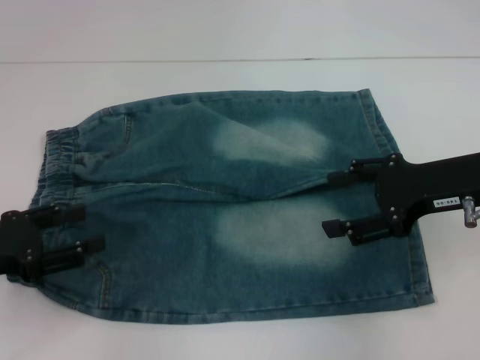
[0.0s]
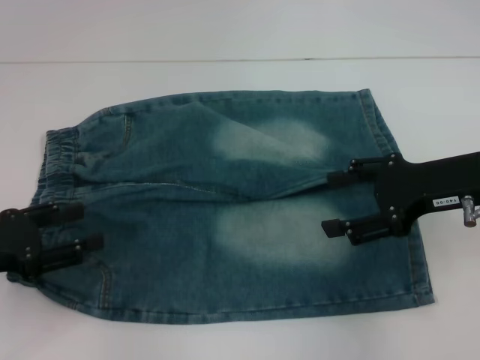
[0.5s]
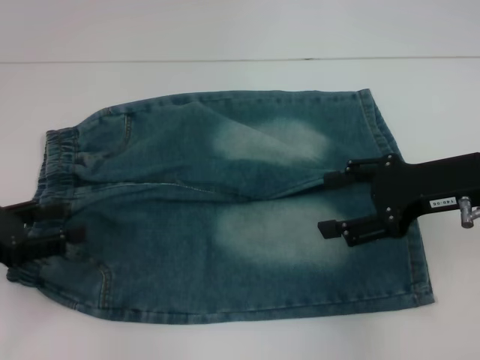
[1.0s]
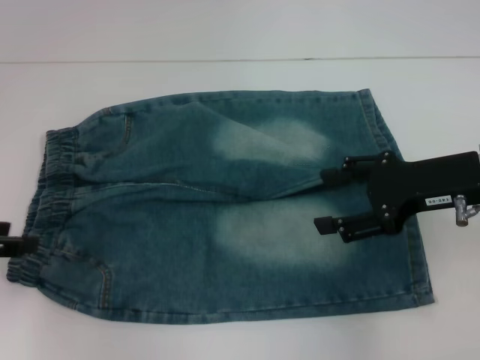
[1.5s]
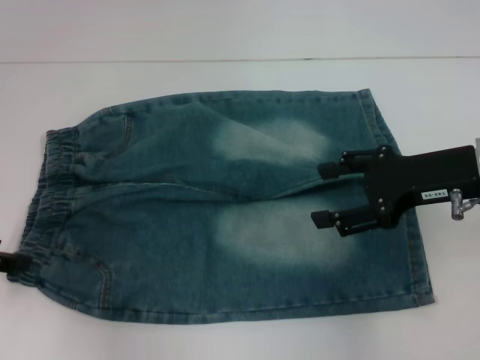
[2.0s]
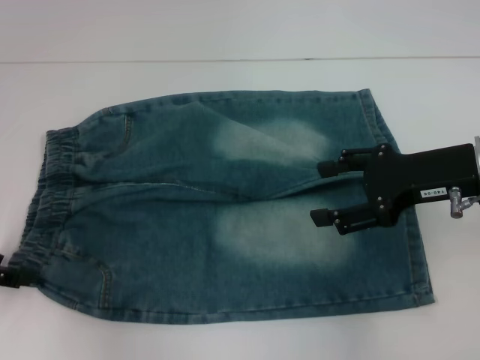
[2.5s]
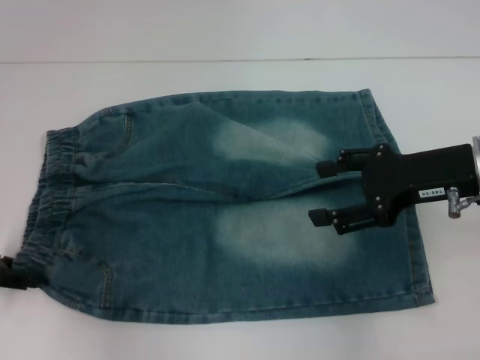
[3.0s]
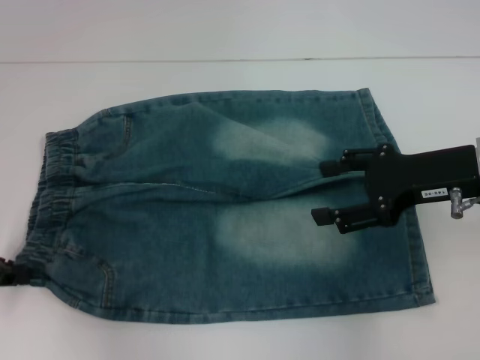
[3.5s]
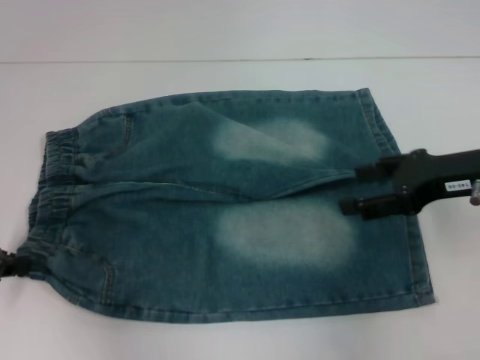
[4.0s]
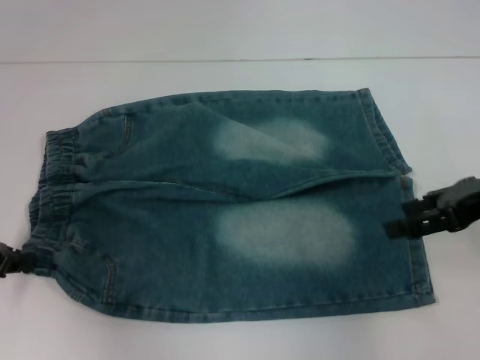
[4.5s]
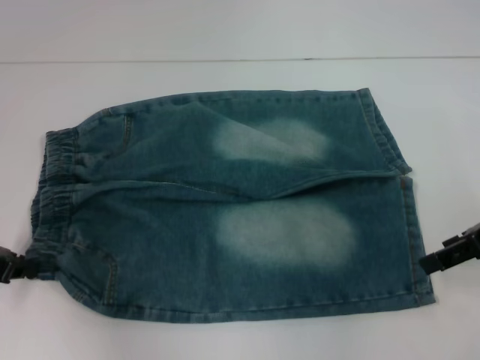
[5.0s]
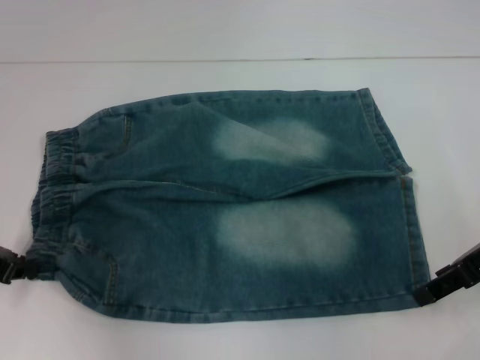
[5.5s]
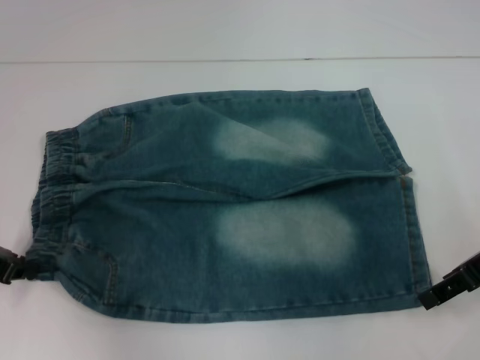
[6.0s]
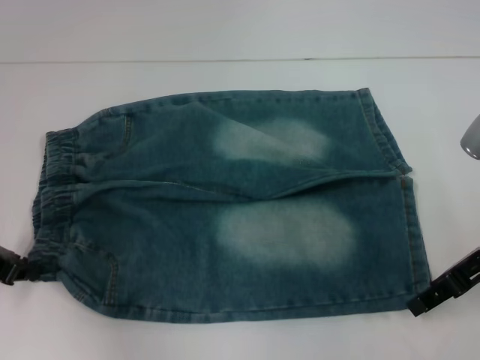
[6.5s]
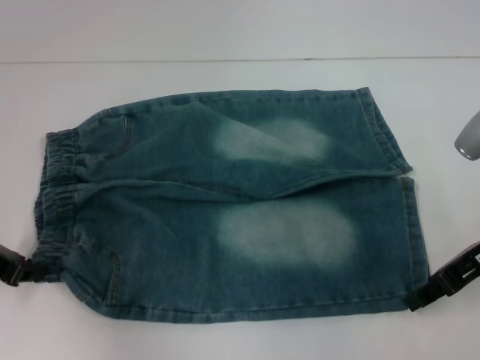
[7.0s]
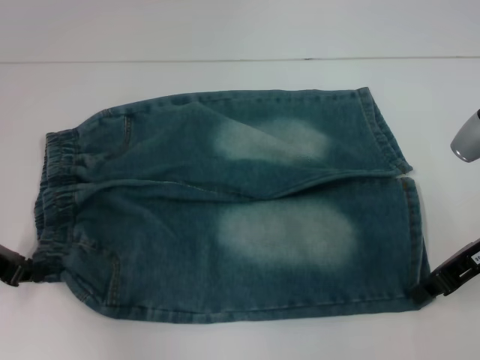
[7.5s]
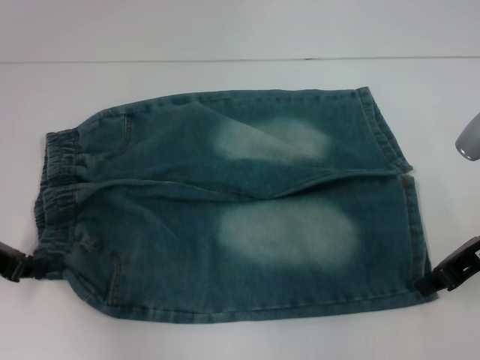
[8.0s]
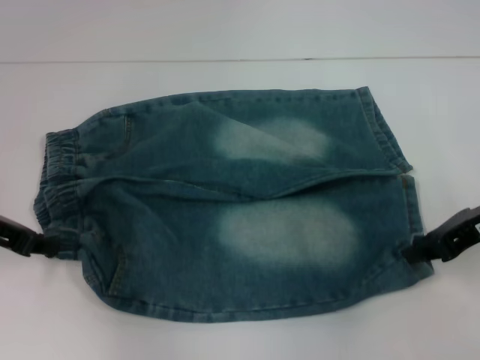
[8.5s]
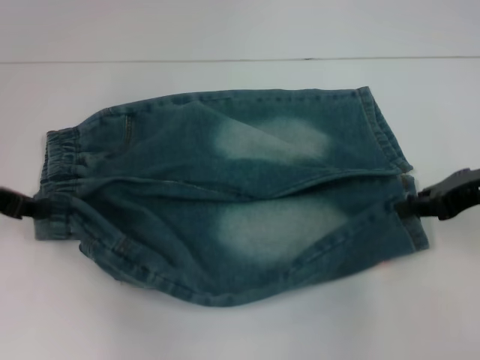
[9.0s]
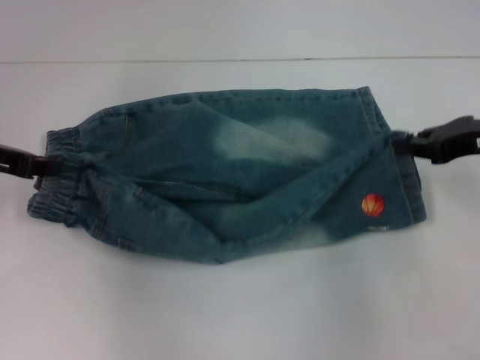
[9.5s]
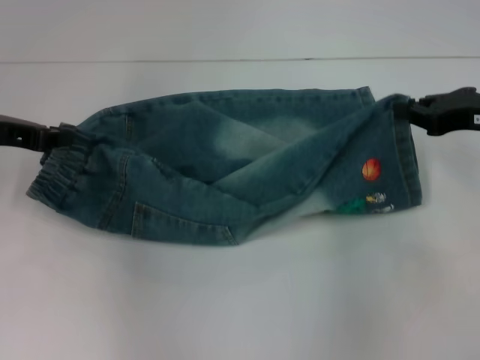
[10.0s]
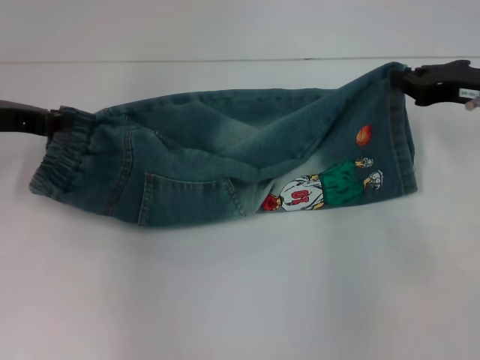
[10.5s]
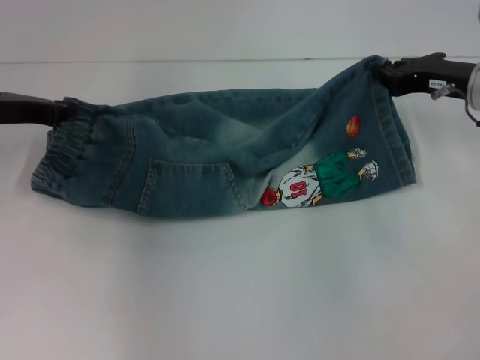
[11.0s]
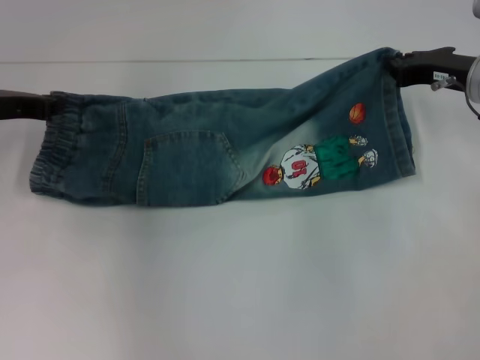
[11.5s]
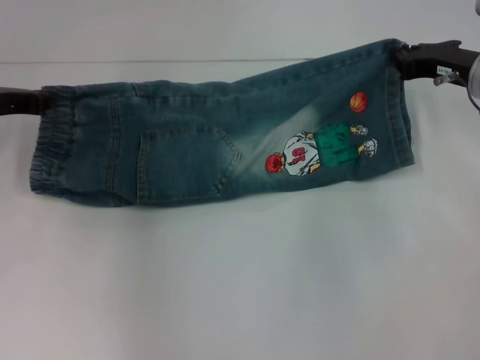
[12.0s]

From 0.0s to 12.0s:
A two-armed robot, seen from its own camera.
Step, from 0.0s to 3.0s: Hold the lower left waistband with your left hand.
Step, from 3.5s to 7.5s: Grab the lower right pant leg with your right hand.
From 0.0s to 2.0s: The left gripper ends up about 5 cm from where it was.
From 2.0s to 4.0s: The left gripper closes up.
From 6.0s to 8.0s: The right gripper closes up.
From 8.0s to 10.0s: The left gripper shifts roughly 10 cm upward and forward, while the right gripper ends up about 5 cm from where it was.
From 10.0s to 12.0s: The right gripper shifts some 5 cm forward.

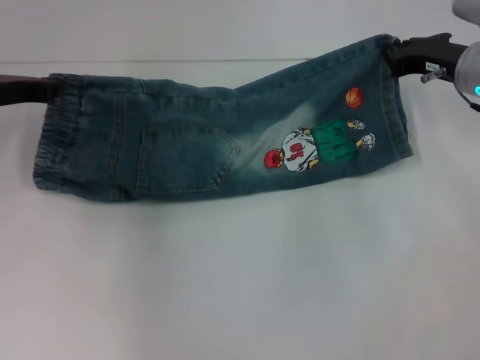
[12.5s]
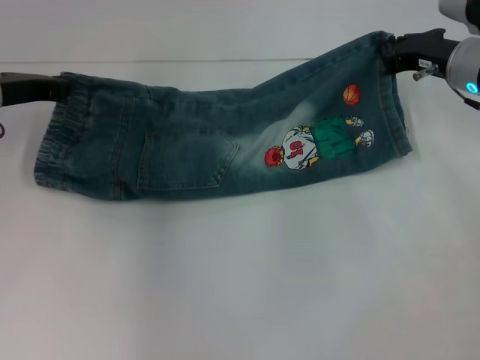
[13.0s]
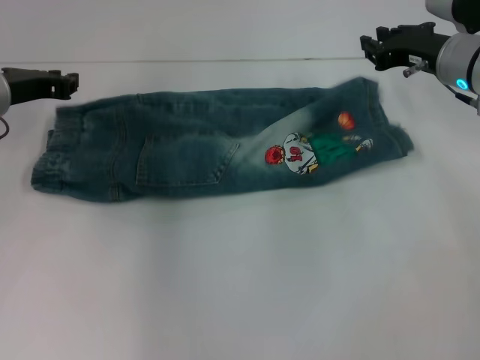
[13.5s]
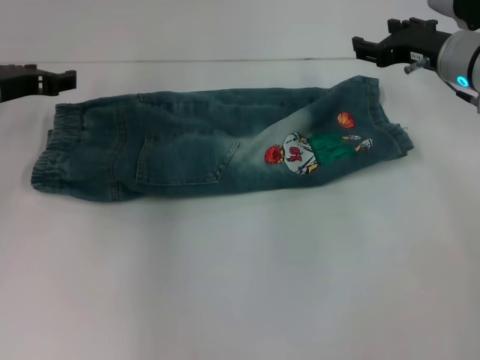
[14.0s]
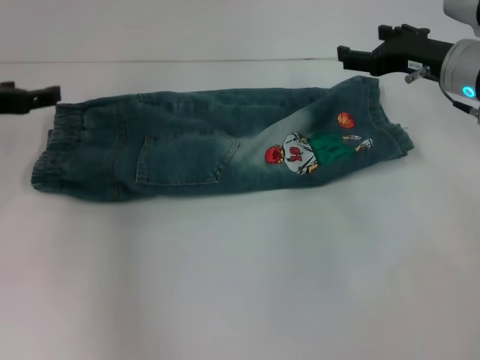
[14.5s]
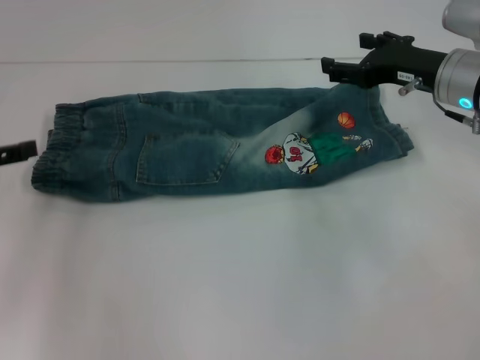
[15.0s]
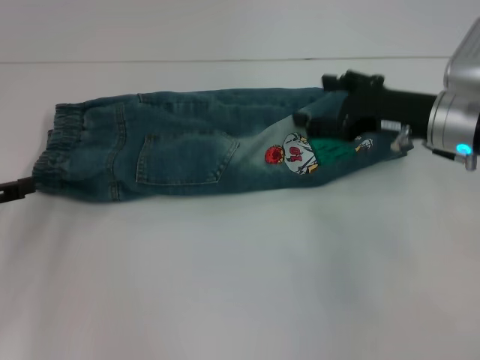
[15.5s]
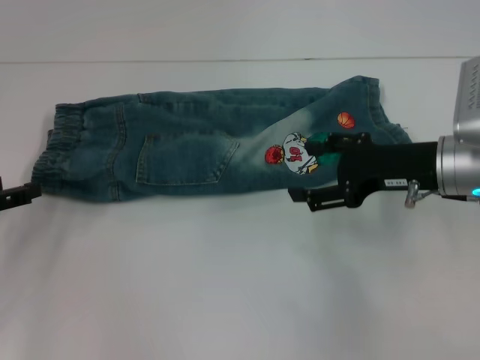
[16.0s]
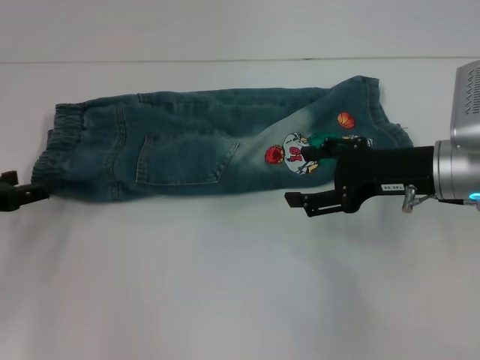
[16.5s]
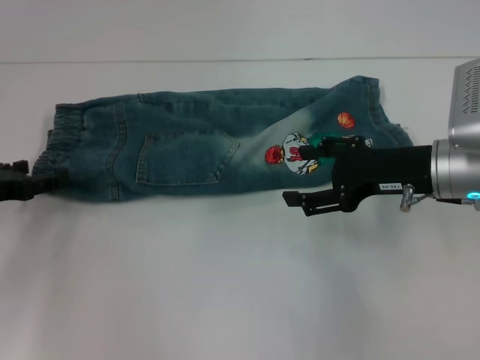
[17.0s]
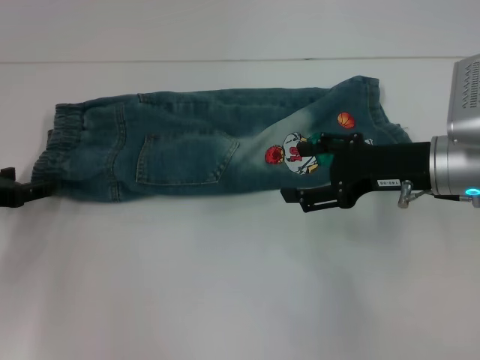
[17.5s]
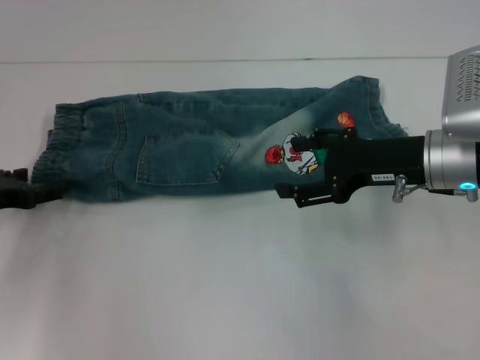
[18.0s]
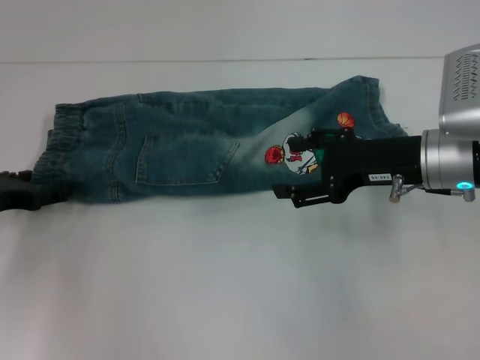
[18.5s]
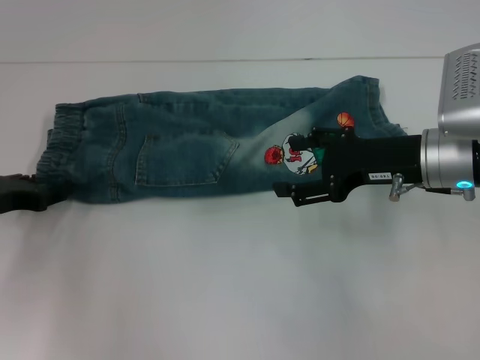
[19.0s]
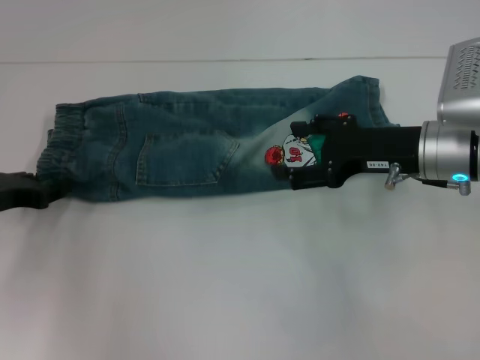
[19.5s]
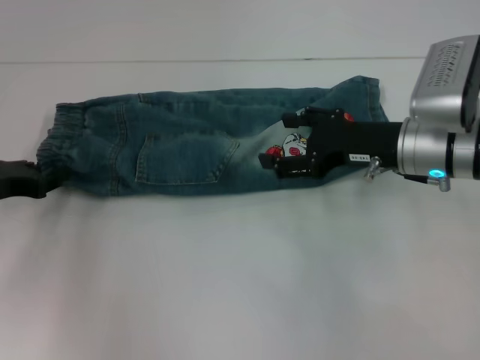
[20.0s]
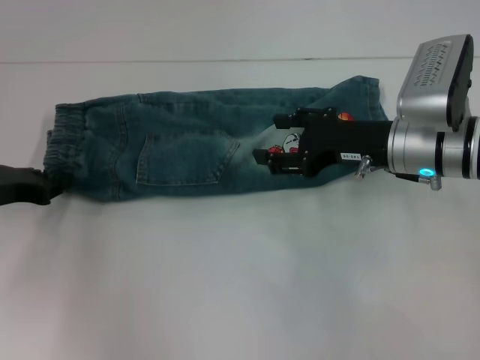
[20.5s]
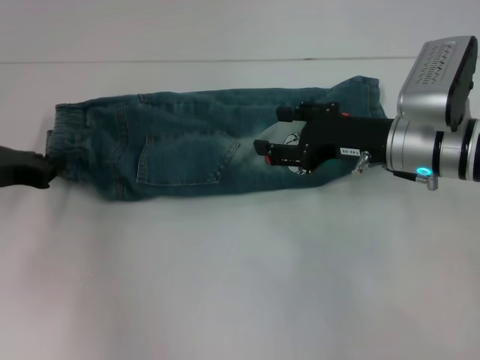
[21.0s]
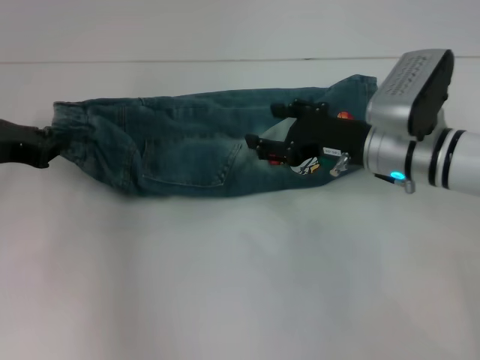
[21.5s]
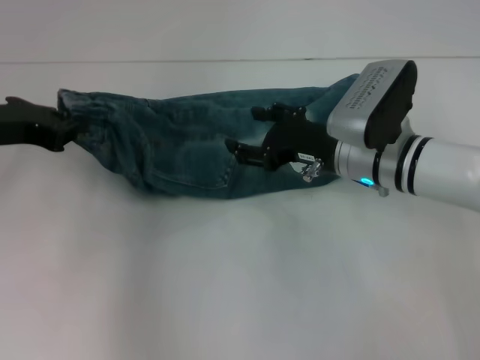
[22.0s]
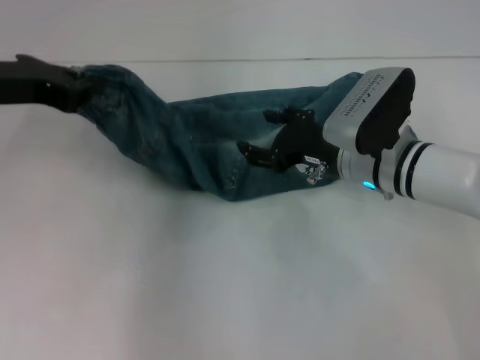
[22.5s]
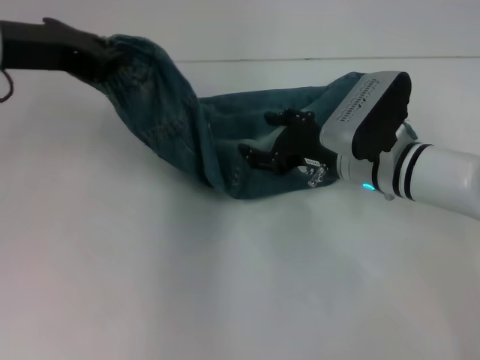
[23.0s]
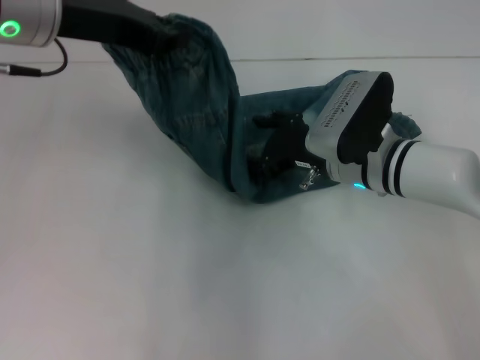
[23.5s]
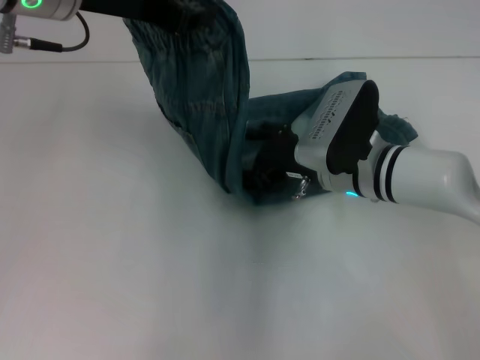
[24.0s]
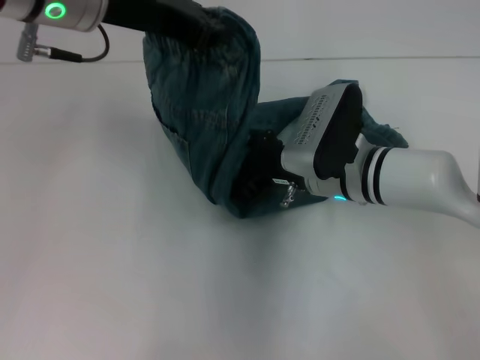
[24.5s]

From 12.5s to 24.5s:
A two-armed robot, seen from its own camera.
Step, from 14.0s to 19.0s: Hold the waistband with your left hand.
From 12.5s to 14.5s: The right gripper opens its fingers. The left gripper opens.
From 14.5s to 16.5s: The right gripper moves backward, roughly 10 cm. The left gripper shifts roughly 10 cm backward and downward.
From 16.5s to 18.5s: There are only small adjustments of the grippers.
From 18.5s to 20.5s: The left gripper closes its fingers.
From 20.5s to 22.5s: The right gripper ends up roughly 5 cm from where it was; the left gripper is displaced upward by some 15 cm.
From 22.5s to 24.5s: The left gripper goes approximately 15 cm to the right and upward.

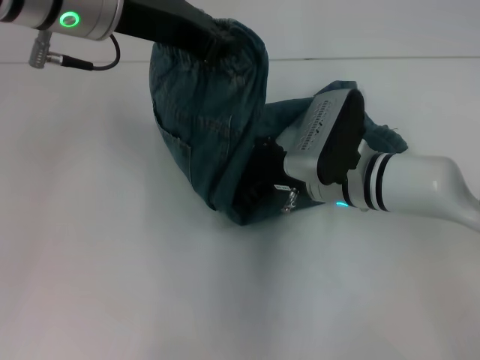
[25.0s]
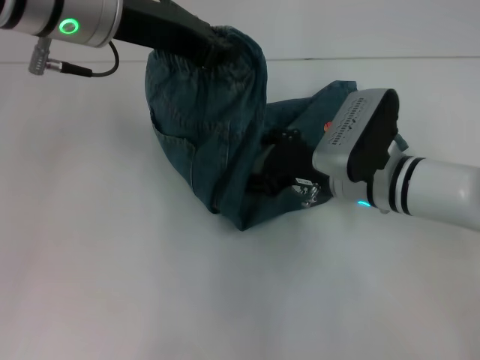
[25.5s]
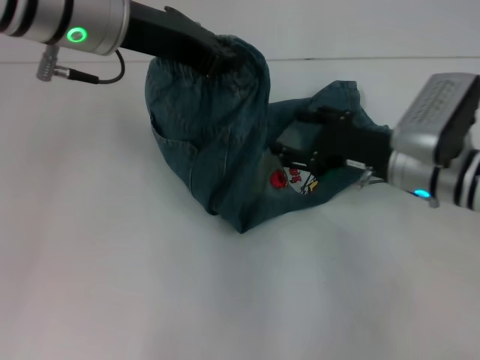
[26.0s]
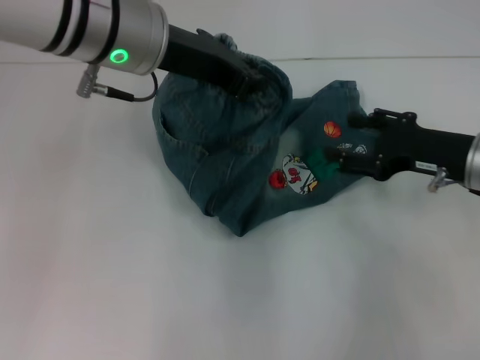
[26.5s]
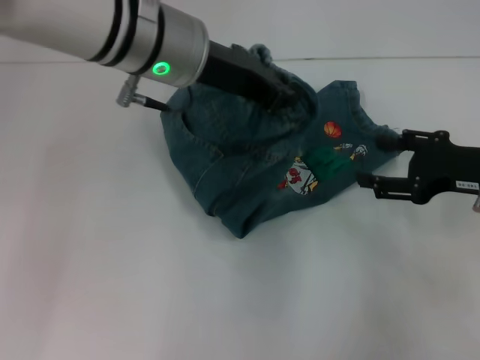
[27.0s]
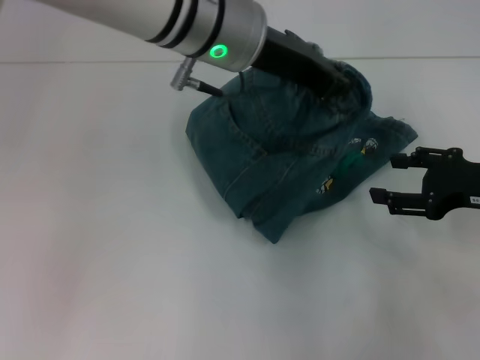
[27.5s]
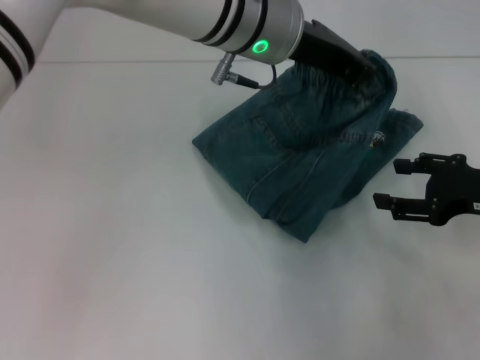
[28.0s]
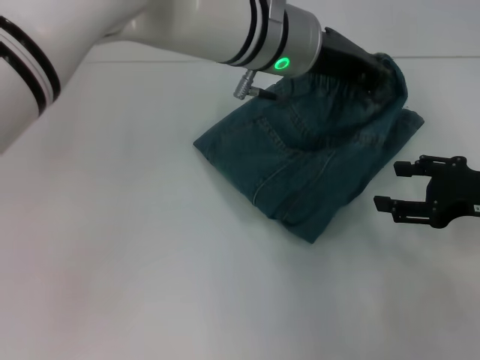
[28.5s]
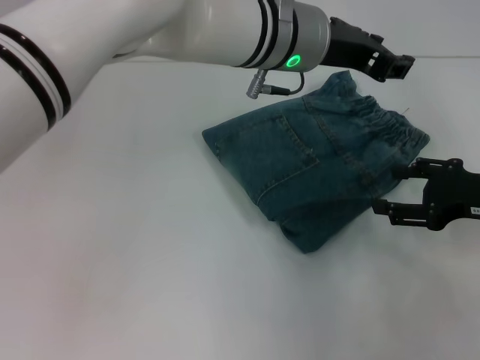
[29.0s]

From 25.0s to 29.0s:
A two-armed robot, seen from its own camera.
Step, from 25.5s to 28.5s: Fold to the right with your left hand.
From 25.0s to 27.0s: The left gripper travels to the right by roughly 5 cm, while the right gripper travels to the right by roughly 15 cm.
From 27.0s to 29.0s: The left gripper moves to the right, some 10 cm.
